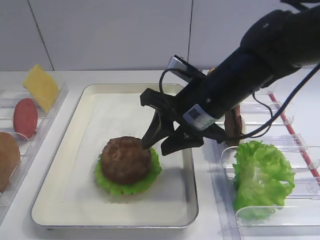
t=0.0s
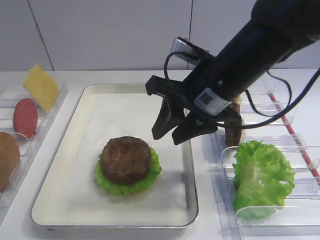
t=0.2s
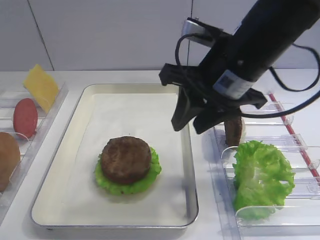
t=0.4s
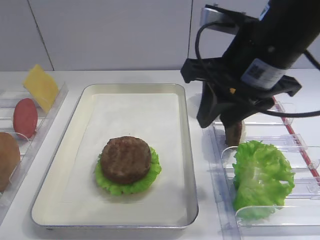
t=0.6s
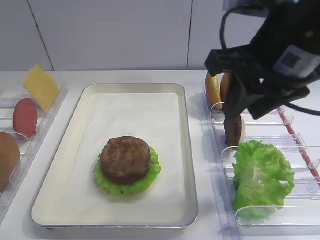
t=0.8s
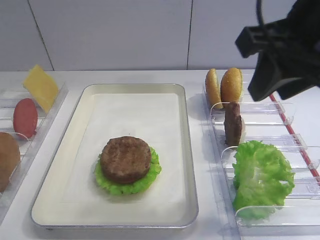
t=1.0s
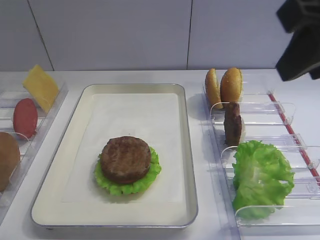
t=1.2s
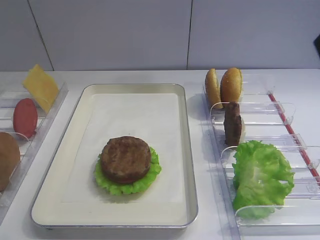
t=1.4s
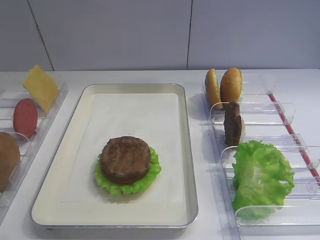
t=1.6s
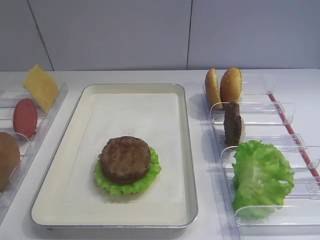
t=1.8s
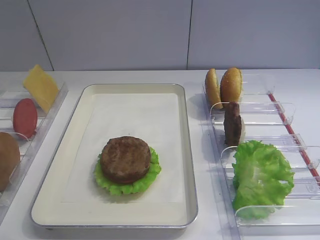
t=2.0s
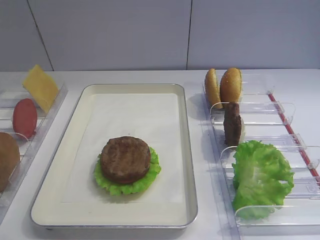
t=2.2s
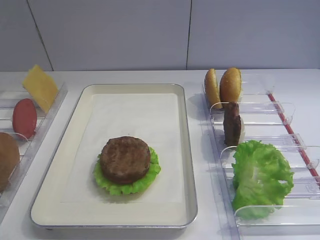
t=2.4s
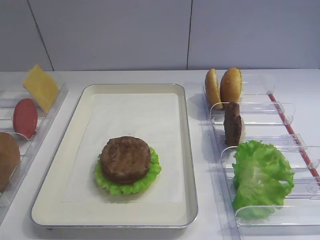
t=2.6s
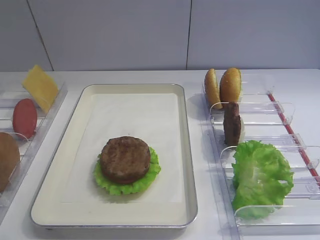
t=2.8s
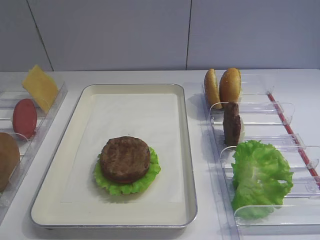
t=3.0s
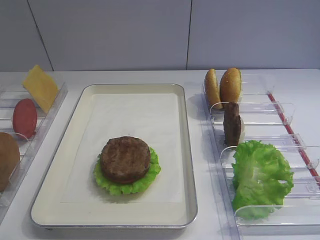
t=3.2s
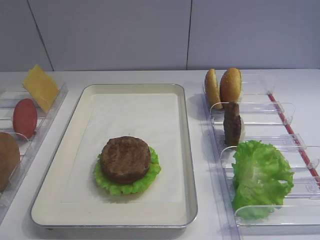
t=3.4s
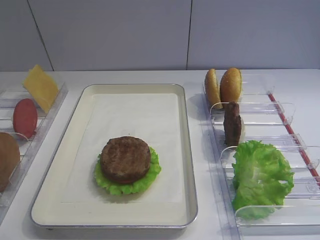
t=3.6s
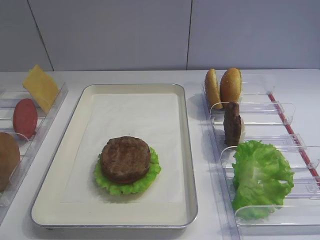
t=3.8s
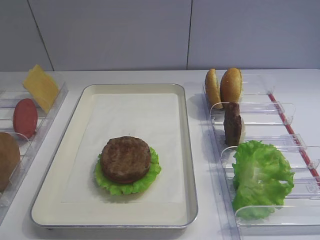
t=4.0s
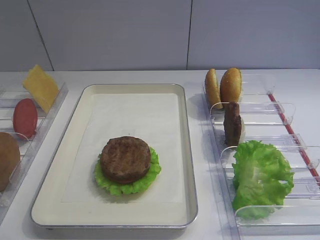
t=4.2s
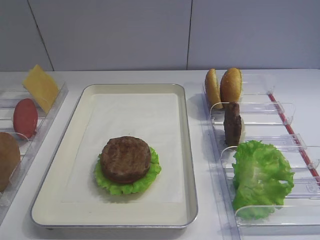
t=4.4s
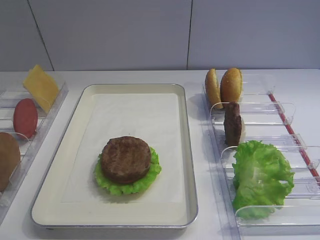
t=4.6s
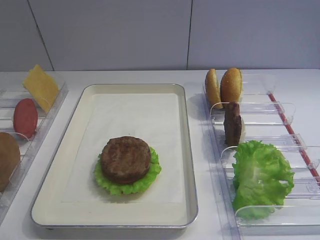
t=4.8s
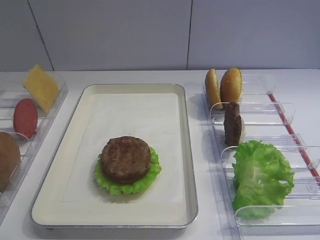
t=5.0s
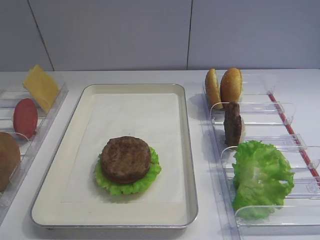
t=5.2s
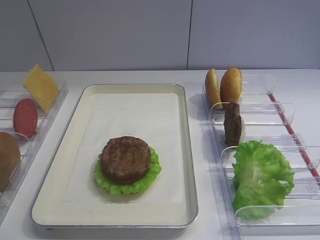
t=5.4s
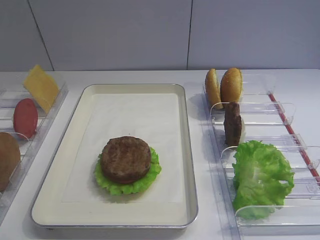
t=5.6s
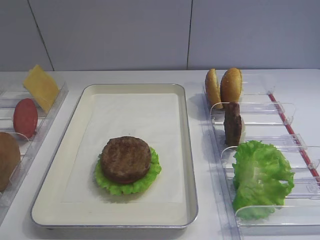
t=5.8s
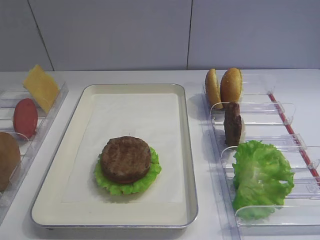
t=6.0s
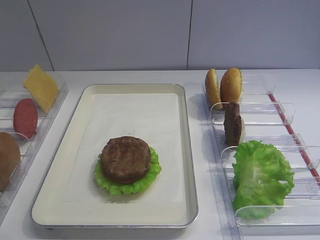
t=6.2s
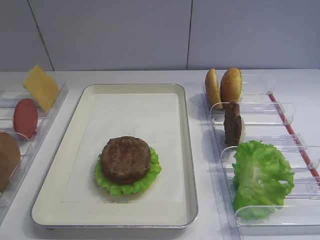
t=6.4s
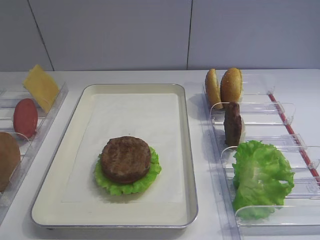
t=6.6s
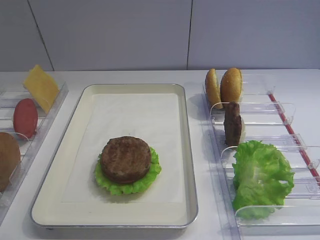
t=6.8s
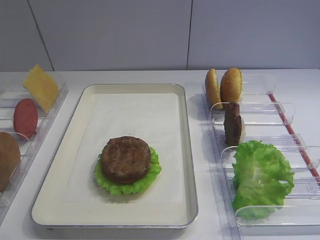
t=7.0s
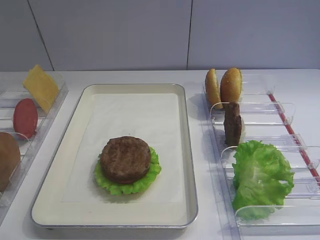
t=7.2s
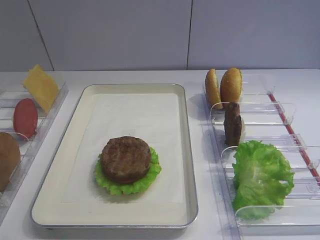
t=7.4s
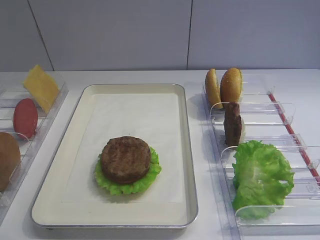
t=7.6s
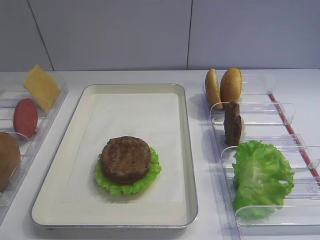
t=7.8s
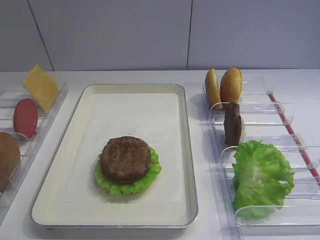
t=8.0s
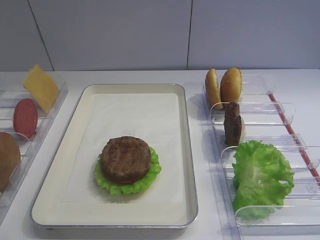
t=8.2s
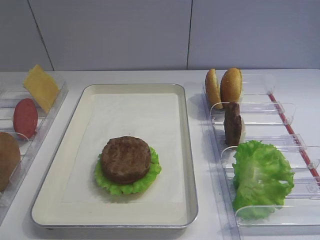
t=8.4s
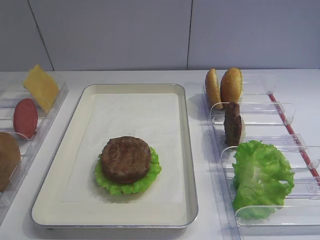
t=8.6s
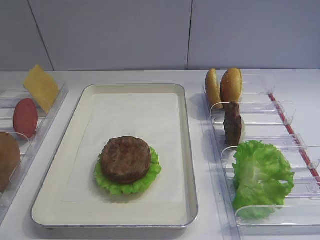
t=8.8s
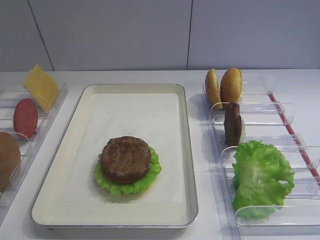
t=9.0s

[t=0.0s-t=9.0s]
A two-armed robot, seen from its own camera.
t=0.0s to t=1.6s: The right gripper heads upward, backward and to the right, covering about 30 cm.
t=1.6s to t=3.0s: The right gripper moves backward, downward and to the right, about 20 cm.
t=4.4s to t=9.0s: Neither gripper changes place.

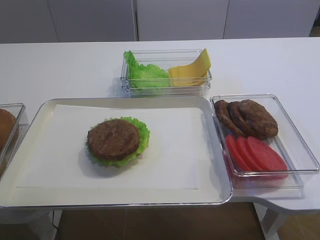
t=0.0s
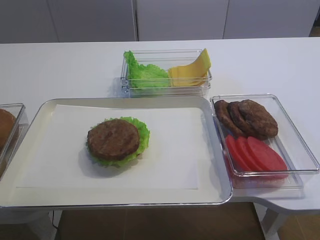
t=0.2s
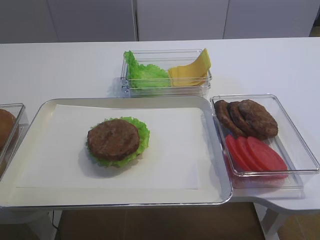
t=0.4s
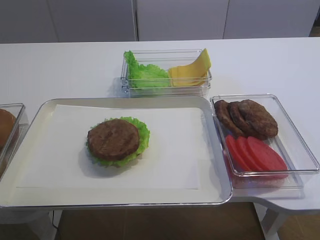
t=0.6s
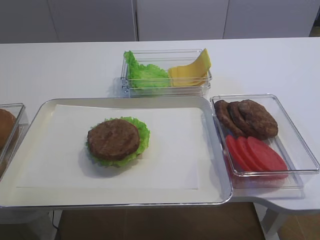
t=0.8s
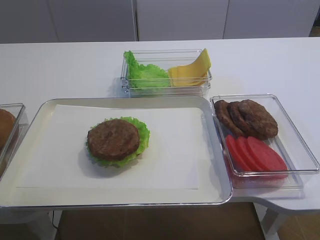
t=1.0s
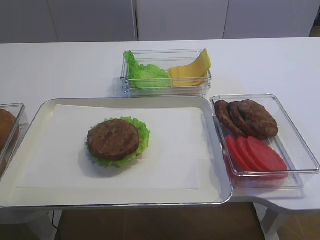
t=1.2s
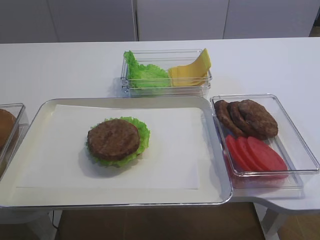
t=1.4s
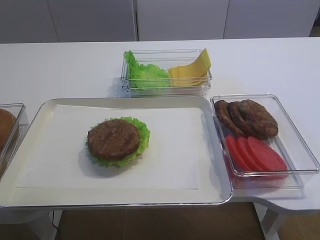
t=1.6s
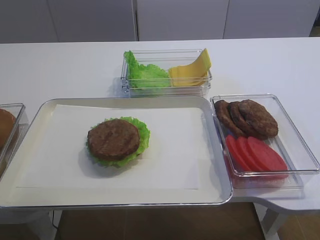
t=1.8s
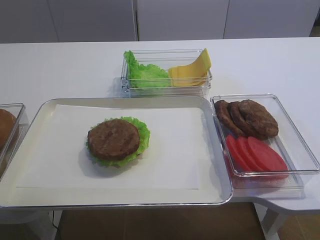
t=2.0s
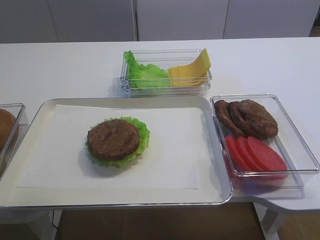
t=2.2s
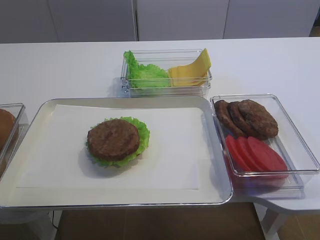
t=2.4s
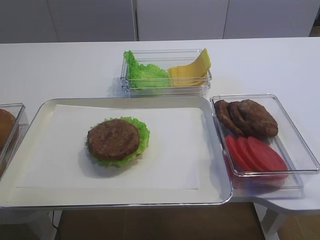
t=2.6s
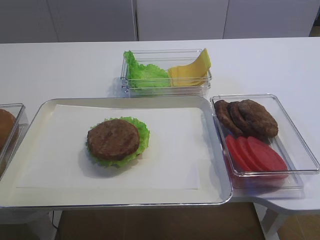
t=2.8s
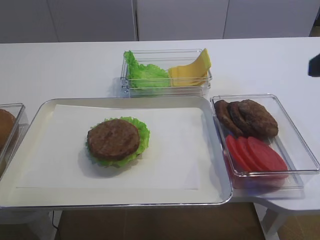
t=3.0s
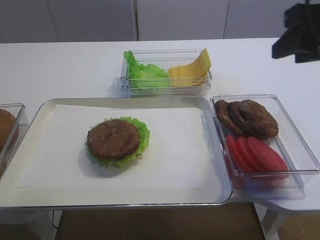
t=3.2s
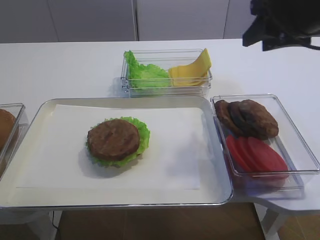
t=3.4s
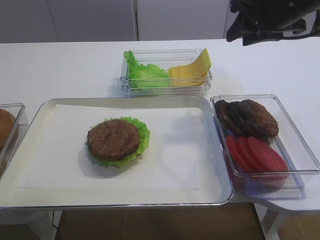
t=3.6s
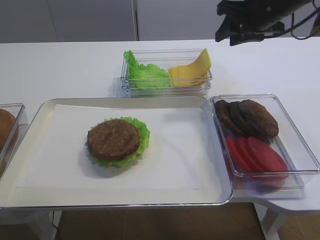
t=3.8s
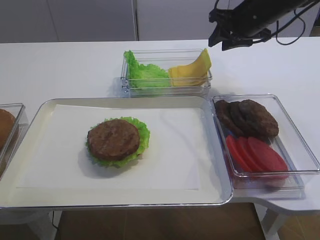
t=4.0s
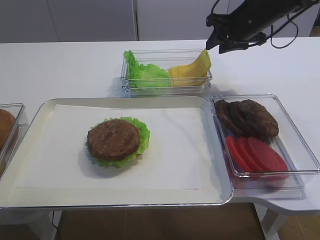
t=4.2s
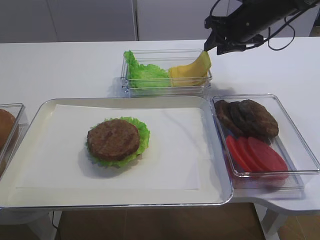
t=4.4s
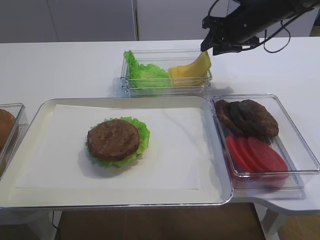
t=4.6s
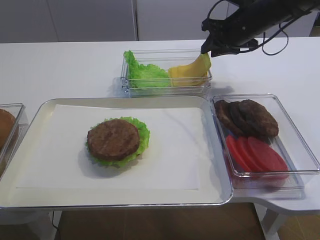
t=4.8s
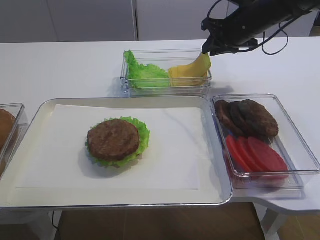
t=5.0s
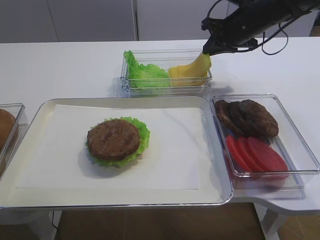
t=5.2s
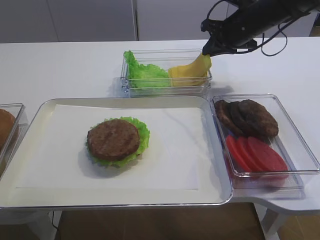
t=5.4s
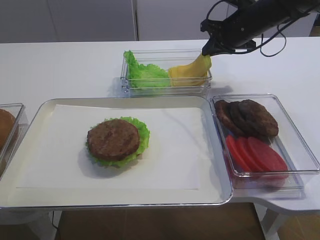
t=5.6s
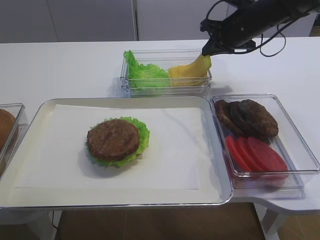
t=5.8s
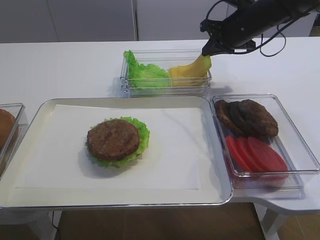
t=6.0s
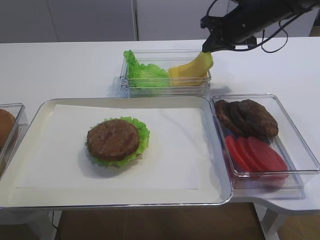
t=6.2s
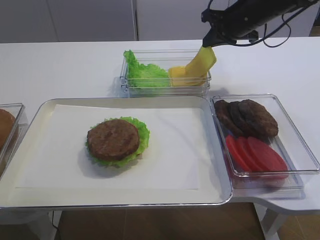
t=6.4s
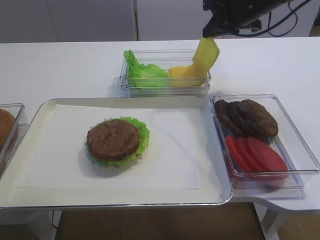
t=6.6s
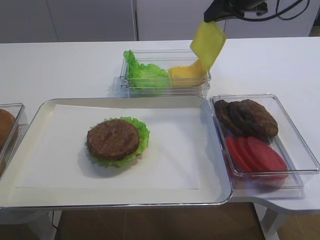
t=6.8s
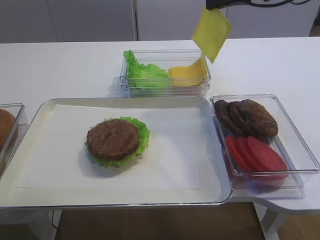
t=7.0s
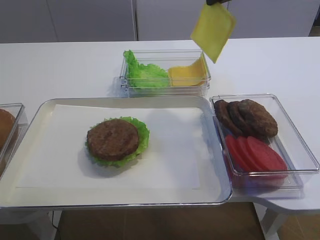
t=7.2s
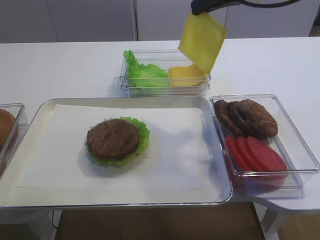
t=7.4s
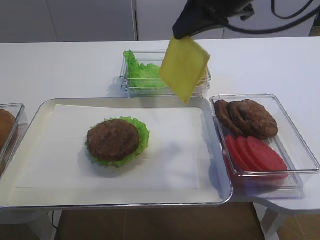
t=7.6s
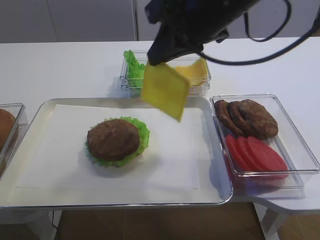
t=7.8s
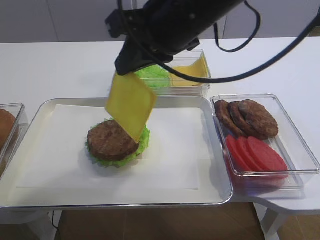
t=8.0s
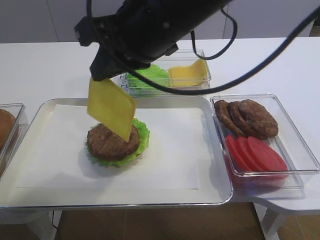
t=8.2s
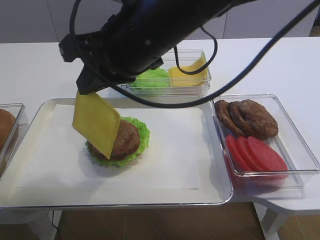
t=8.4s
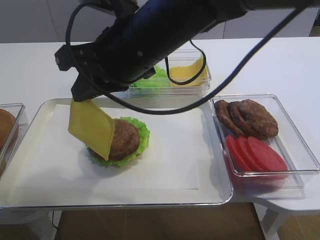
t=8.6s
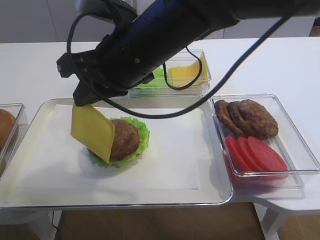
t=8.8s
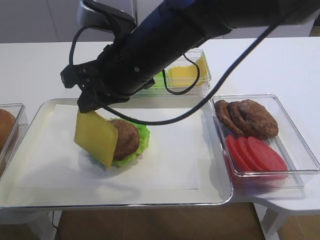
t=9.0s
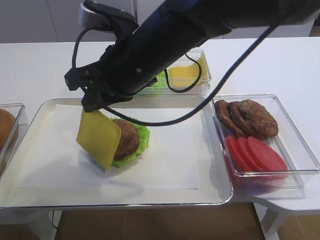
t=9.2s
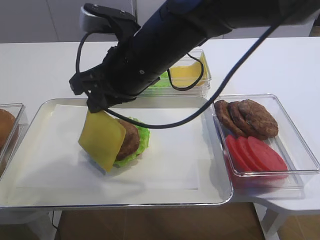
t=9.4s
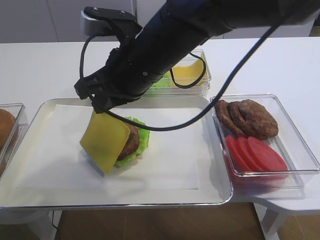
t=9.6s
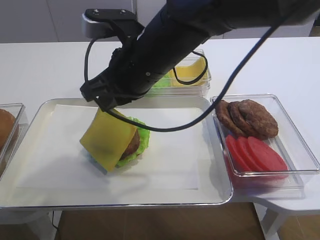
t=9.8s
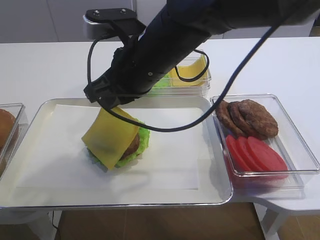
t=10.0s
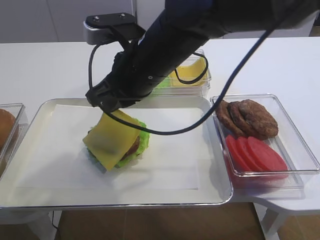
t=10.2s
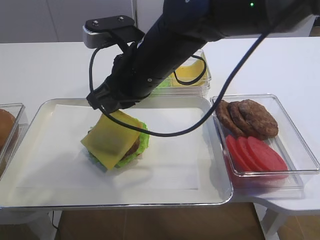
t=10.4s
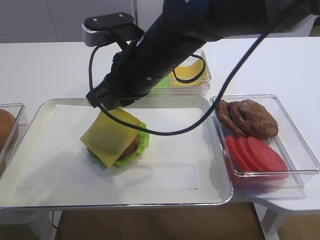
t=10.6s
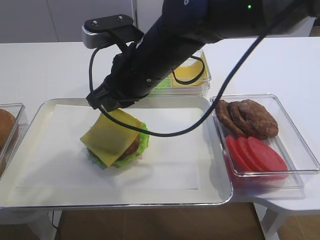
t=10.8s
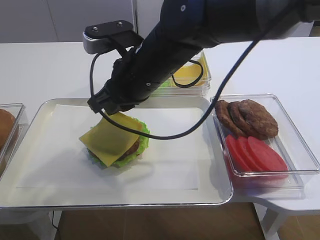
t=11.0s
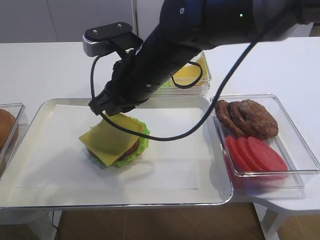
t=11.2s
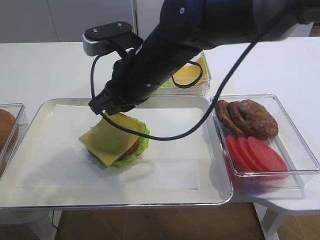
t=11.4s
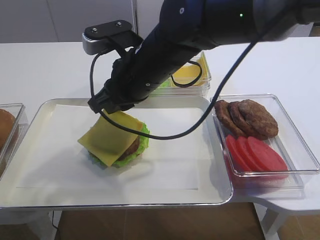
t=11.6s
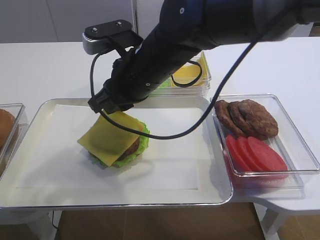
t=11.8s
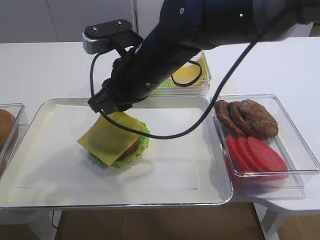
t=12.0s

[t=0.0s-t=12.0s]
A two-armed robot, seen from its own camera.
Step, t=0.0s to t=6.4s: Pick up the cheese slice with the right gripper.
t=1.6s to t=3.0s: The right gripper moves forward, approximately 15 cm.
t=3.0s to t=4.4s: The right gripper shifts roughly 30 cm forward.
t=4.4s to t=6.0s: The right gripper closes.
t=6.0s to t=7.6s: The right gripper goes approximately 20 cm backward and upward.
t=7.6s to t=9.0s: The right gripper shifts about 15 cm to the left and downward.
t=9.0s to t=10.4s: There are only small adjustments of the grippers.
t=10.4s to t=12.0s: The two grippers keep their place.

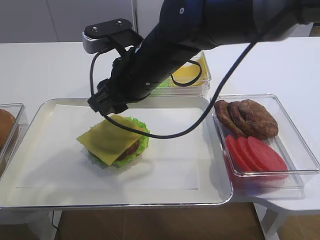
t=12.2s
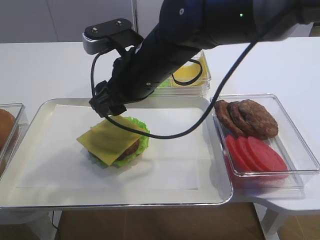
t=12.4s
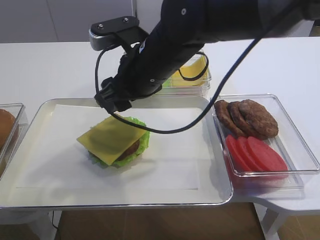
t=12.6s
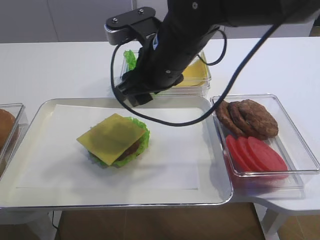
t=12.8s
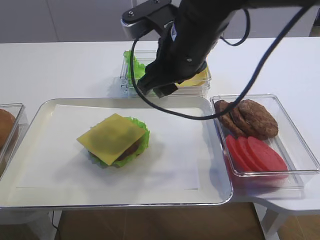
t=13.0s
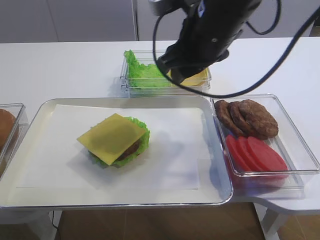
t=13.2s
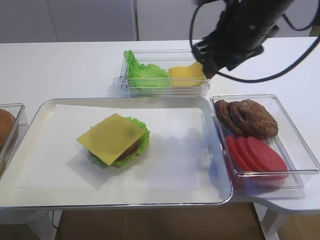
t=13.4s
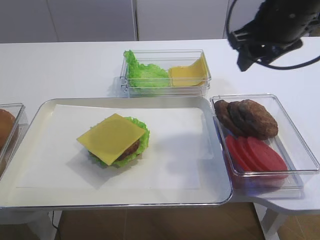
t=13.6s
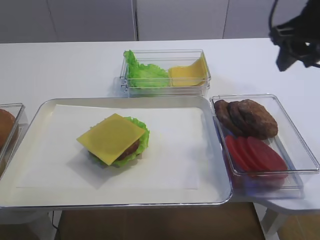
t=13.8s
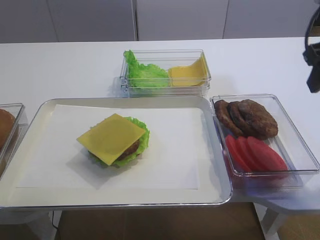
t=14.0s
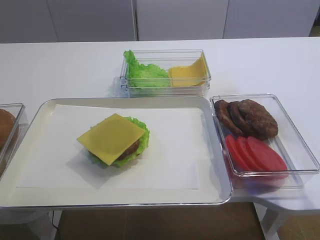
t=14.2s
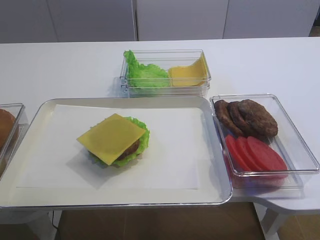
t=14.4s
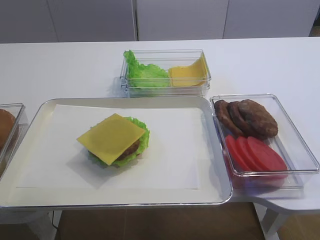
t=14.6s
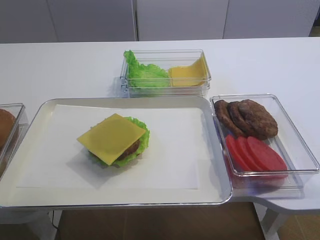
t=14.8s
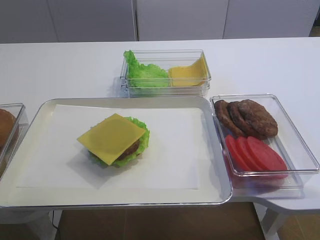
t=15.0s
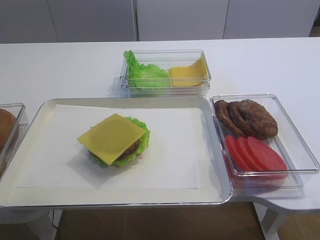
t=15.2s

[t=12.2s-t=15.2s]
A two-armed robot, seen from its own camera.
t=12.2s to t=13.8s: The right gripper shifts roughly 25 cm to the right.
t=13.8s to t=15.2s: The right gripper shifts roughly 30 cm backward.
